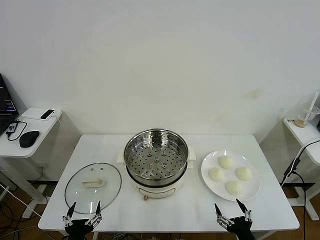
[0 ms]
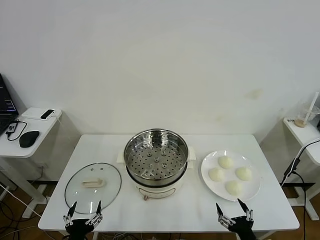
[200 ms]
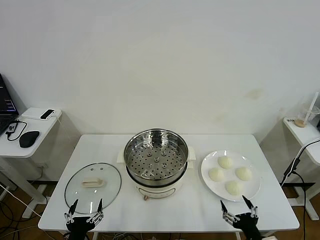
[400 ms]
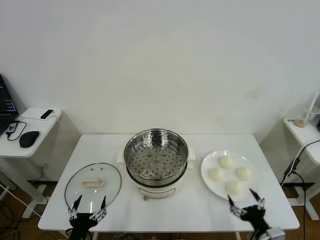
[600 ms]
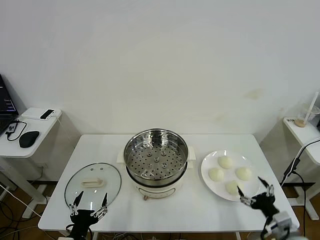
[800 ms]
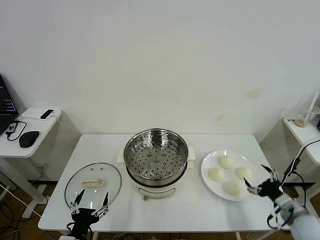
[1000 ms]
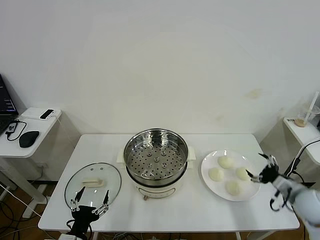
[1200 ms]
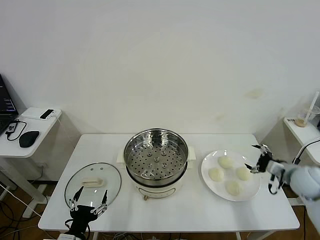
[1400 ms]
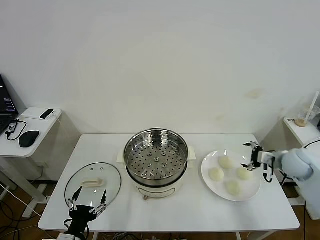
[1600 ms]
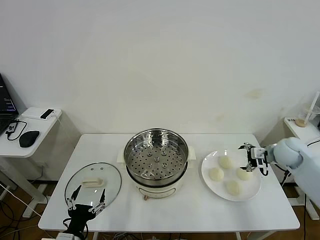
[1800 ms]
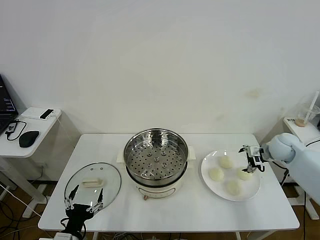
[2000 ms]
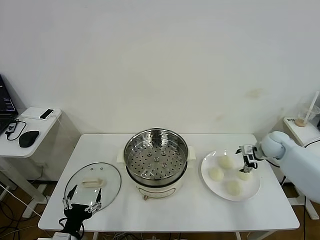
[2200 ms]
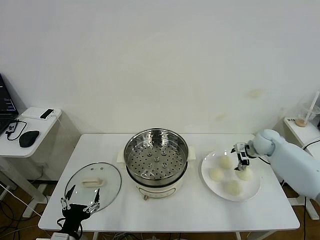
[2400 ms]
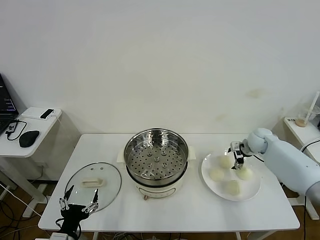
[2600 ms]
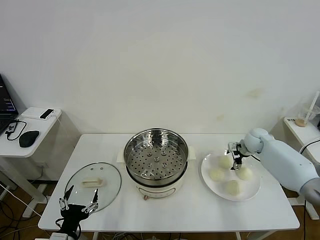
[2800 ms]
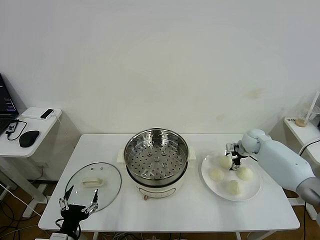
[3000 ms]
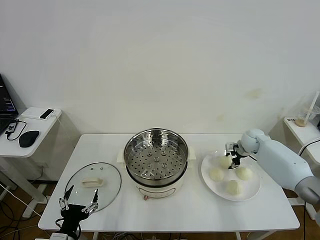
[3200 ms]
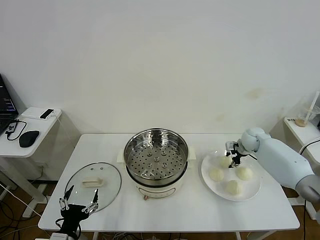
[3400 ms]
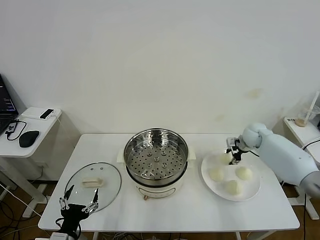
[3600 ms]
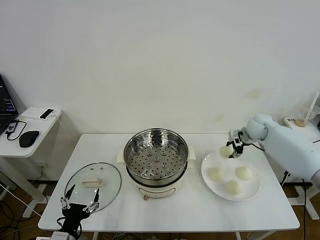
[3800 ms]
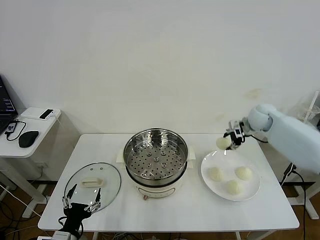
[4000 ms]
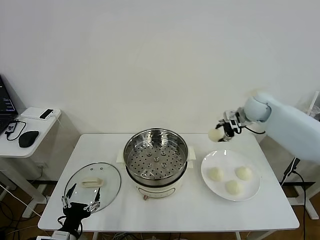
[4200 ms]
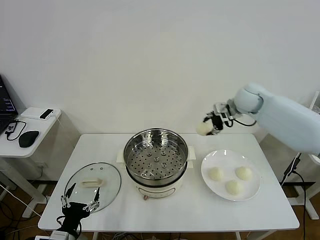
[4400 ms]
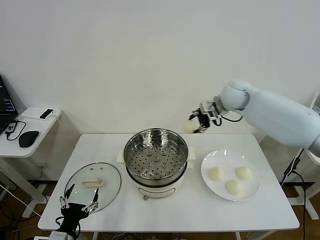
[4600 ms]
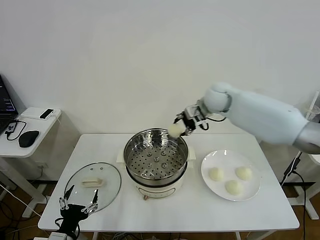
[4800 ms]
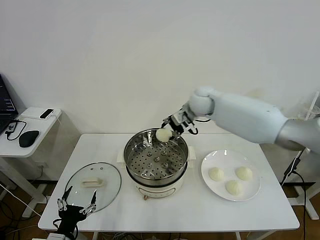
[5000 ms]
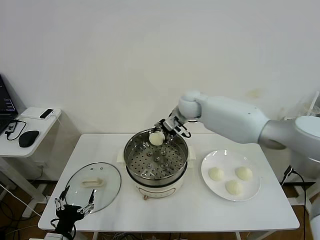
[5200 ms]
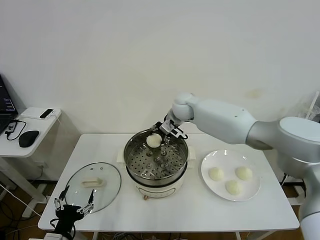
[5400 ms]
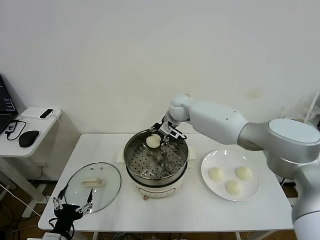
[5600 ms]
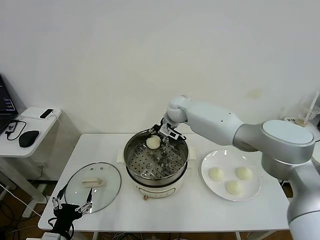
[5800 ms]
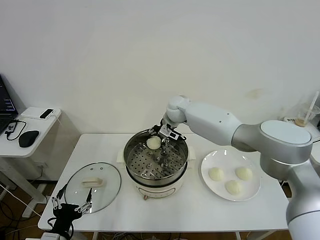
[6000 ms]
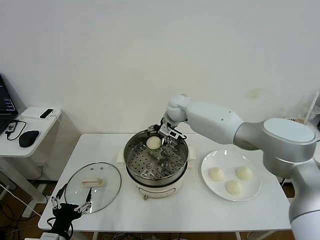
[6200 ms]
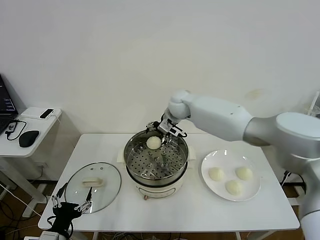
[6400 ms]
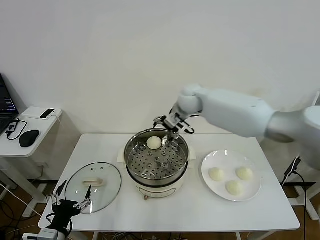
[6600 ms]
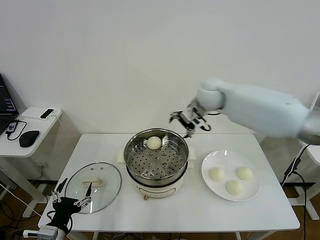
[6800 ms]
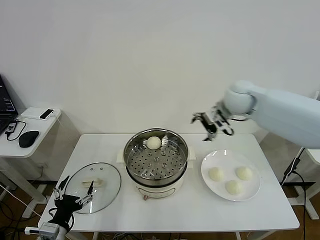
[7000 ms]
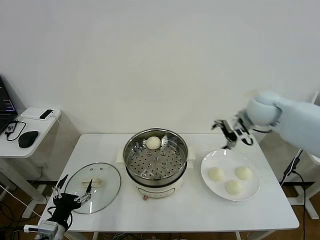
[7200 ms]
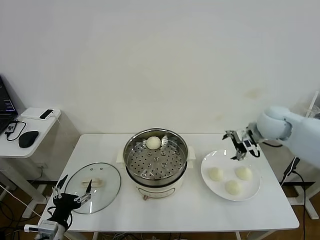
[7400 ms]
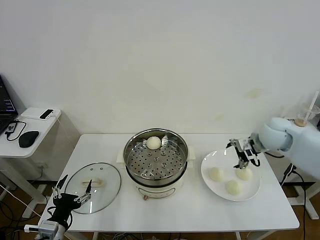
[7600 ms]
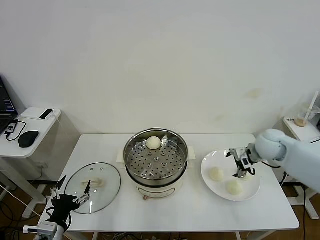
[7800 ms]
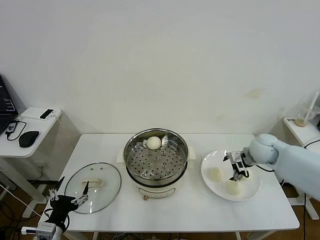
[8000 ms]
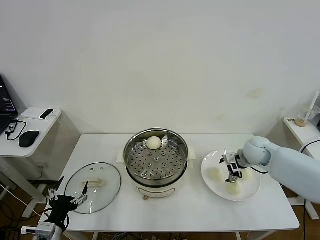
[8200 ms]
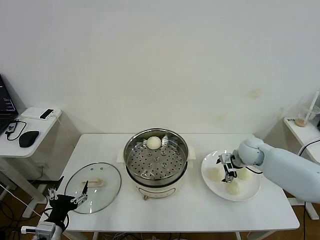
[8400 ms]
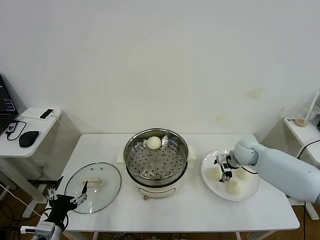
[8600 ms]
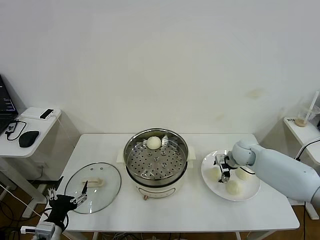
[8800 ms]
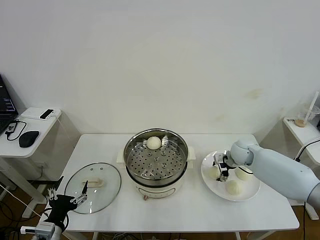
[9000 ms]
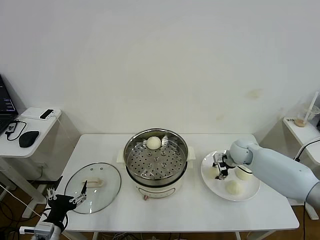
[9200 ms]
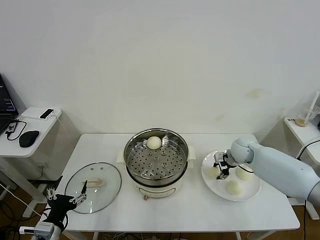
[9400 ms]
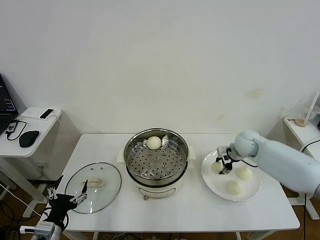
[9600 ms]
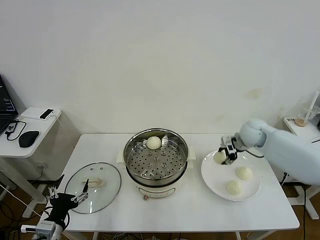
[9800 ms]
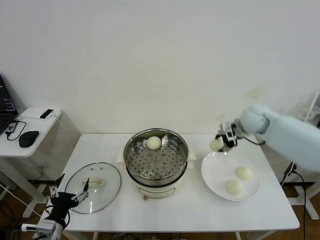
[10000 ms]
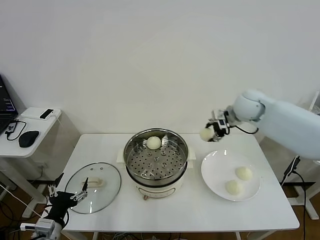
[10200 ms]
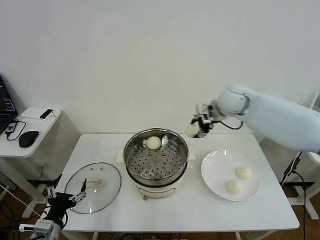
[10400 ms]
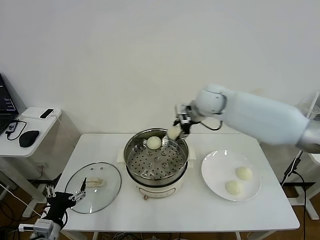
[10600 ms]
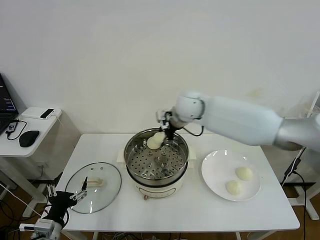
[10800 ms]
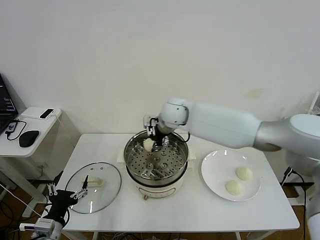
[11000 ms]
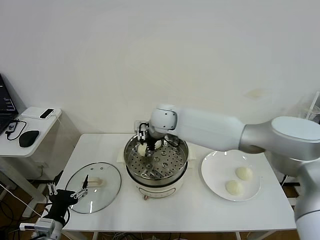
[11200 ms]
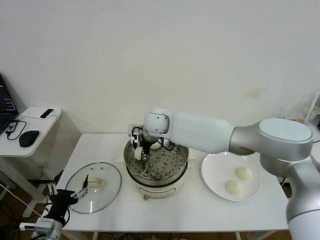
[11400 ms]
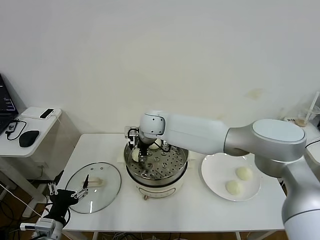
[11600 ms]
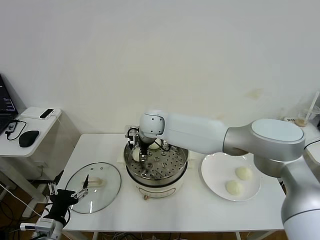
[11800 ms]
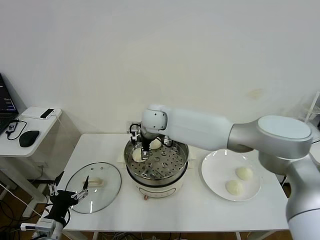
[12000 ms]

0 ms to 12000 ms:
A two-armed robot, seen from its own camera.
Task of the whole recording: take steamed baozi put them in steamer then cover it.
Step, 0 ms to 3200 ms: Grasp the baozi in the plate with right gripper.
Step, 3400 ms to 6400 ms: Place the baozi on the steamer with right gripper.
Step, 6600 ms to 9200 ms: Grasp the baozi in the plate with right gripper.
1600 ms to 3000 ms: The right gripper is displaced forward, downward and to the left by roughly 15 cm, and closes.
3000 ms to 4400 ms: The right gripper travels upward and to the left by about 25 cm, and closes.
4400 ms to 6000 ms: The right gripper travels to the left and downward by roughly 20 cm, and opens its fingers.
6000 ms to 7600 ms: The right gripper moves to the right and backward, approximately 35 cm, and opens.
7600 ms to 9000 ms: The right gripper heads downward, covering about 10 cm, and closes up.
9000 ms to 10400 ms: The right gripper travels upward and to the left by roughly 25 cm, and closes its fingers.
10400 ms to 12000 ms: The right gripper moves to the left, roughly 20 cm, and opens.

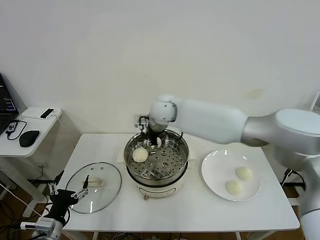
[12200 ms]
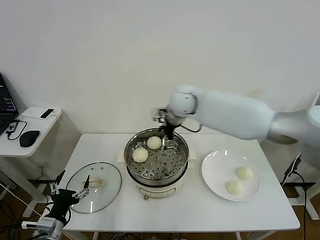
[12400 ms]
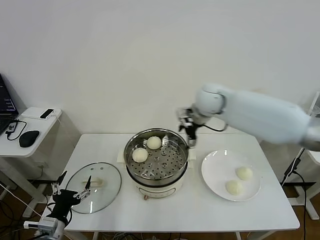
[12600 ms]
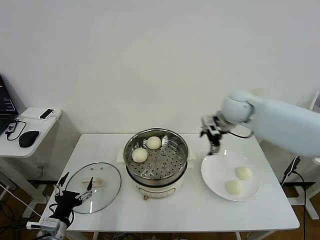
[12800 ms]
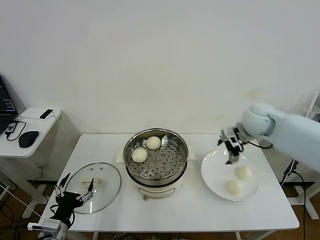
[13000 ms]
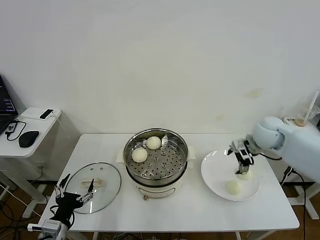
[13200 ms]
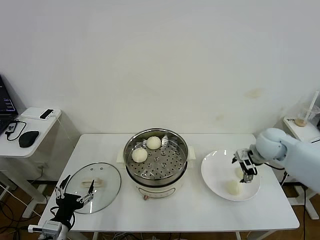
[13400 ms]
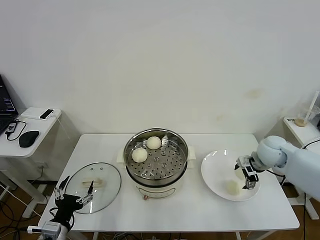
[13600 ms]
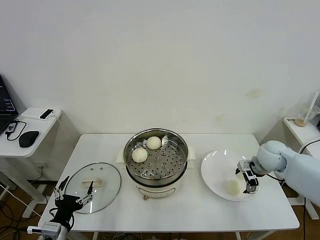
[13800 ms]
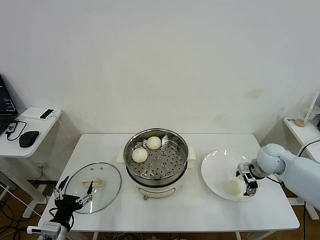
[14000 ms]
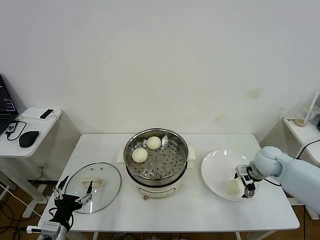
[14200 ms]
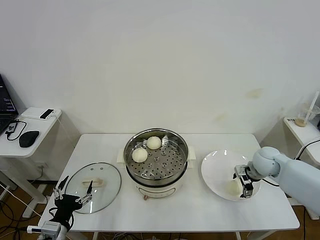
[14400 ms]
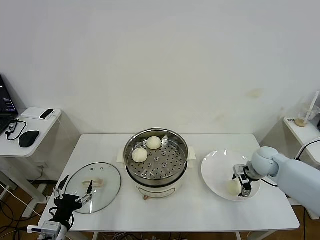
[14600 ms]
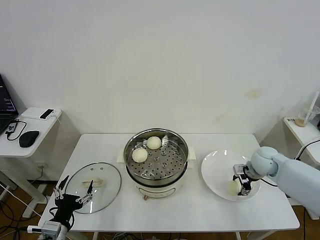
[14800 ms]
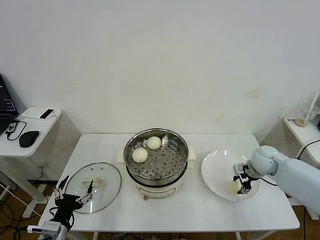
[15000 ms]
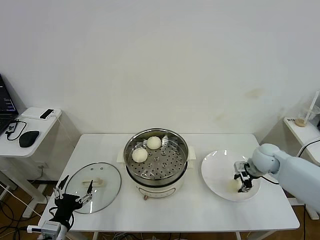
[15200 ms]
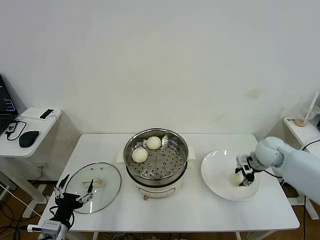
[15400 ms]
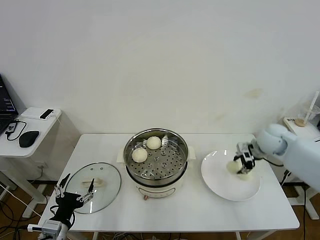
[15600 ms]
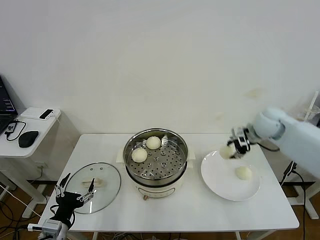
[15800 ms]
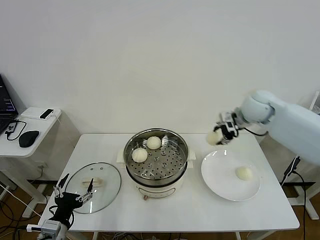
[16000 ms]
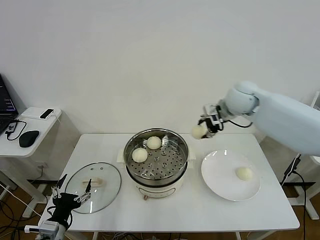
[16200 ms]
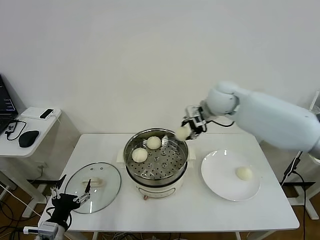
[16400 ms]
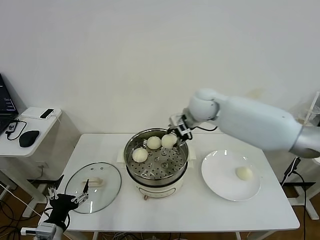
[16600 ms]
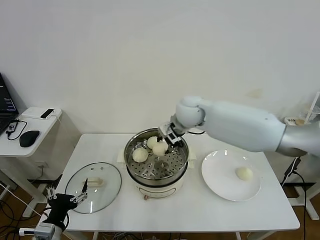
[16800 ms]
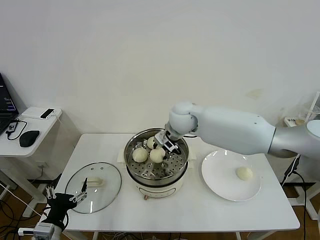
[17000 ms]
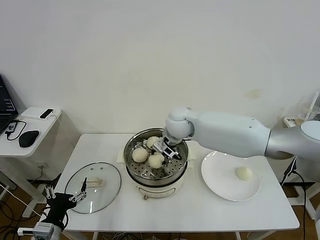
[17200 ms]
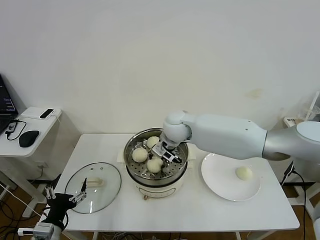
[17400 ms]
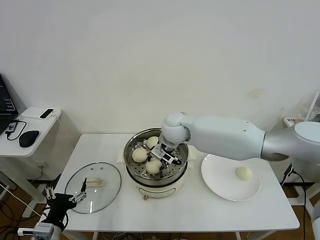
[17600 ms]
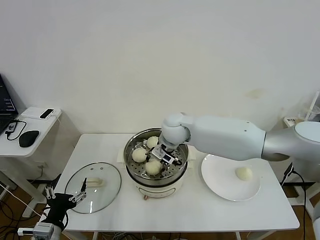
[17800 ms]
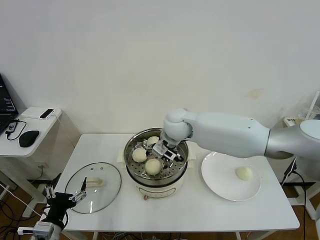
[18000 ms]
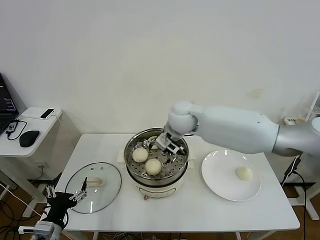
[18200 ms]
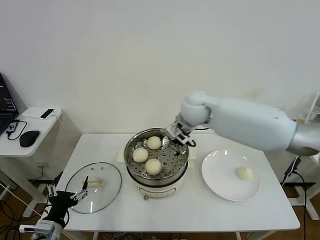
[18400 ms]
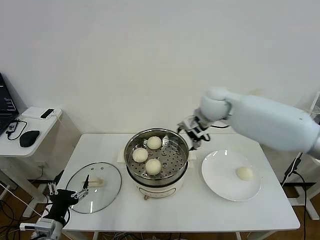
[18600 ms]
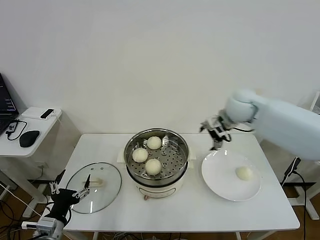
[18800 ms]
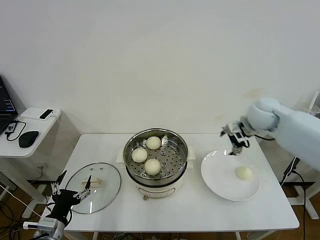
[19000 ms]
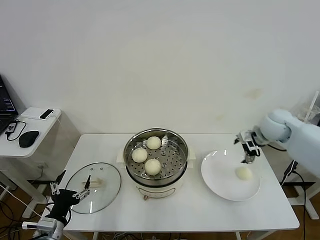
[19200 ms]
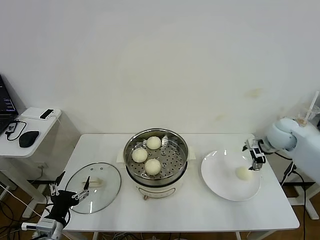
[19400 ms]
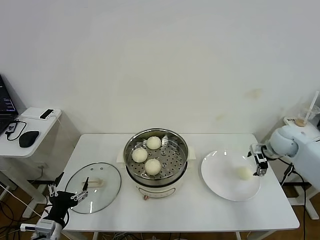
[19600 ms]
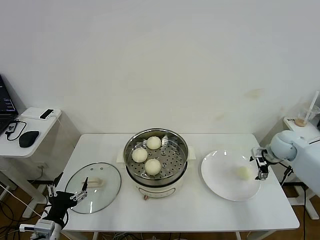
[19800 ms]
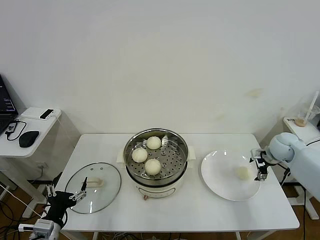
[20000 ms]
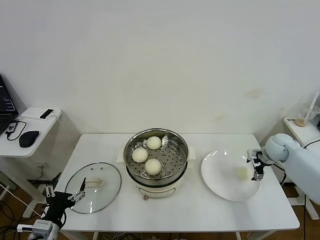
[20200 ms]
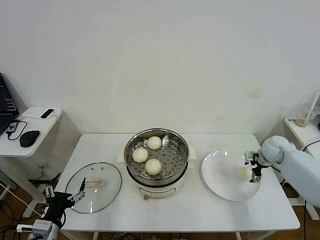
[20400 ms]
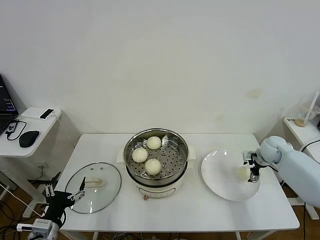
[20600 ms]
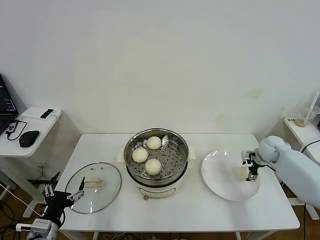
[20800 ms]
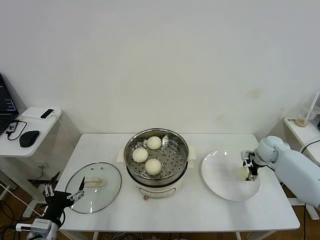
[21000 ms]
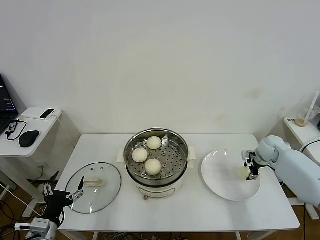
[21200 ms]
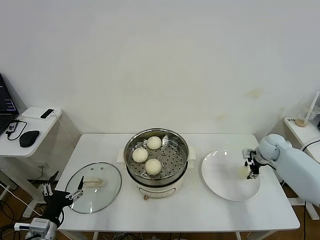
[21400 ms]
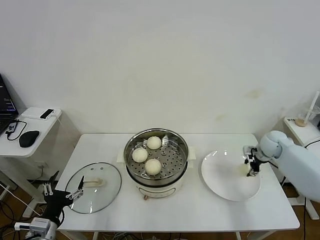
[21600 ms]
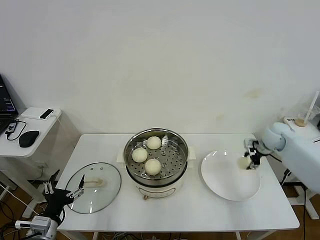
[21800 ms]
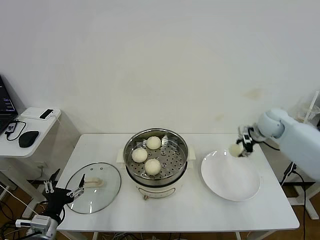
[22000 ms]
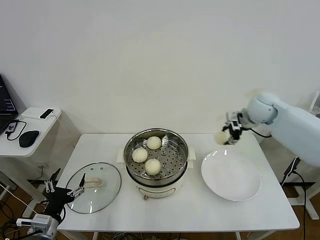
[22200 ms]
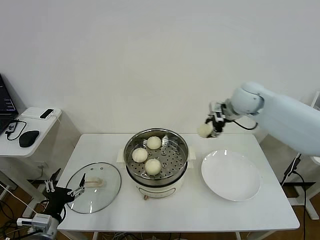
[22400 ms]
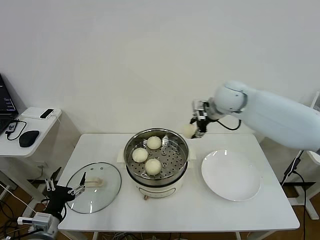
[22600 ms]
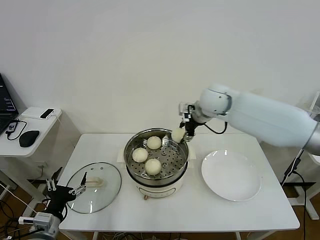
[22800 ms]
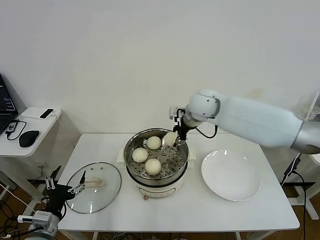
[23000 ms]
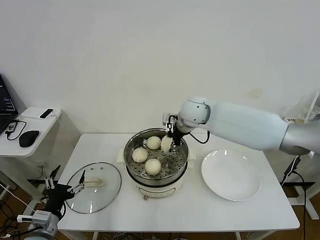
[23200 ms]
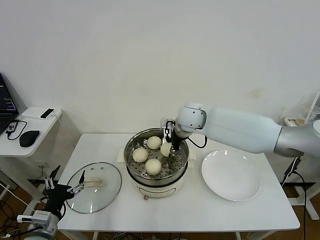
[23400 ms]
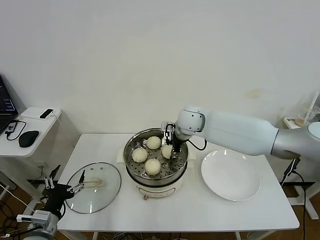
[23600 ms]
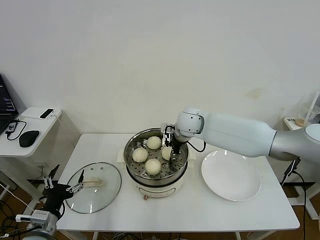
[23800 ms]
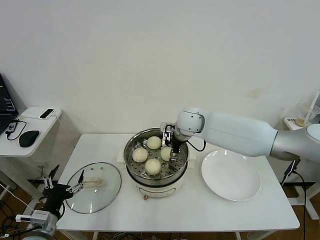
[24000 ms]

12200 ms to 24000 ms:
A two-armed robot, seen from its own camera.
Task of the whole recording: take steamed baozi put them in steamer then cover it.
Step, 12400 ms to 15000 ms: Grasp the baozi in the plate with right gripper.
Step, 15200 ms to 18200 ms: Place the baozi on the steamer with right gripper.
Step, 18400 ms to 21400 ms: Grasp the baozi in the plate with right gripper.
12200 ms to 13600 ms: The right gripper heads to the right, covering approximately 35 cm.
13600 ms to 15200 ms: The right gripper closes.
15200 ms to 16600 ms: The right gripper travels to the left and upward by some 30 cm.
16600 ms to 18200 ms: The right gripper travels to the left by some 5 cm, and opens up.
18200 ms to 19600 ms: The right gripper shifts about 35 cm to the right.
19600 ms to 21000 ms: The right gripper shifts roughly 10 cm downward.
21000 ms to 22600 ms: The right gripper is displaced upward and to the left by roughly 30 cm, and closes its fingers.
22600 ms to 24000 ms: The right gripper is displaced to the left and downward by roughly 15 cm, and opens up.
